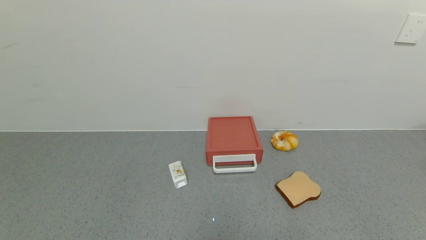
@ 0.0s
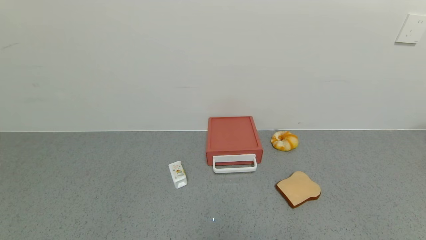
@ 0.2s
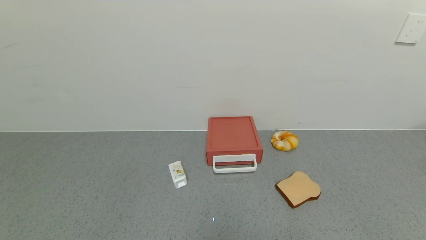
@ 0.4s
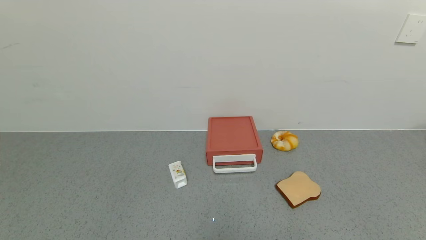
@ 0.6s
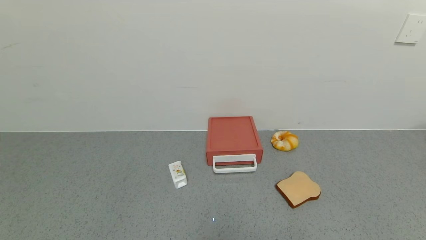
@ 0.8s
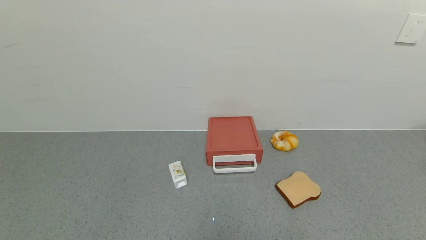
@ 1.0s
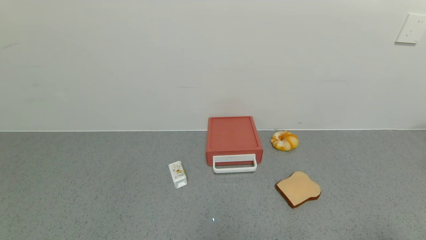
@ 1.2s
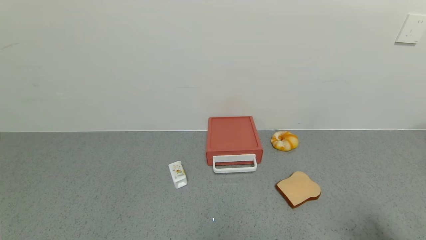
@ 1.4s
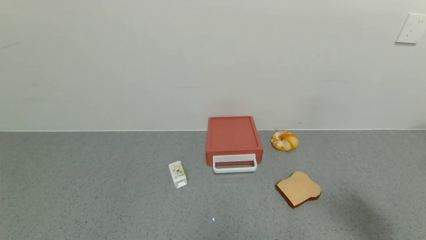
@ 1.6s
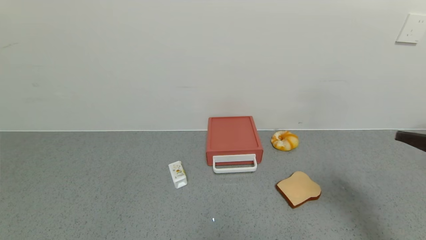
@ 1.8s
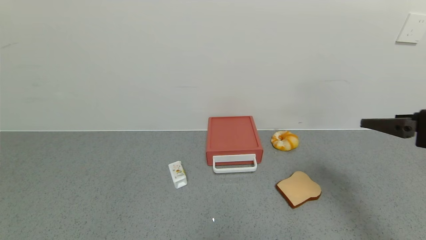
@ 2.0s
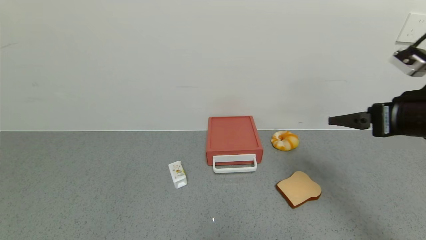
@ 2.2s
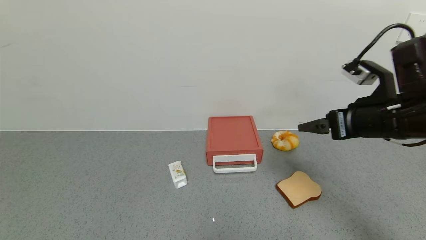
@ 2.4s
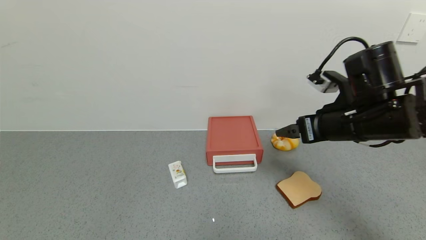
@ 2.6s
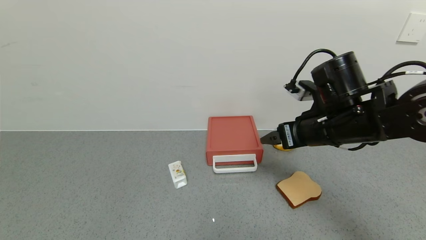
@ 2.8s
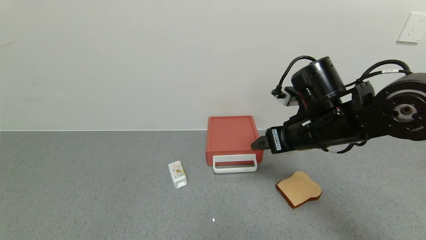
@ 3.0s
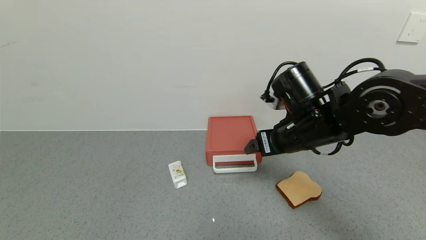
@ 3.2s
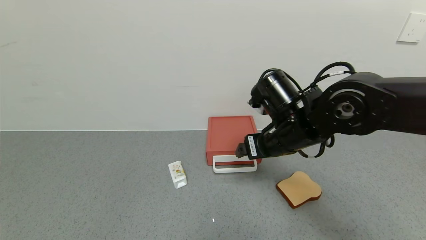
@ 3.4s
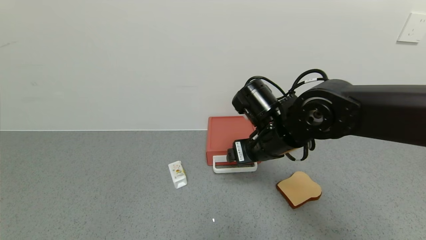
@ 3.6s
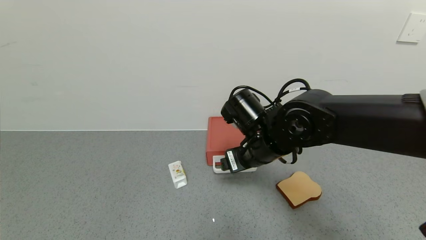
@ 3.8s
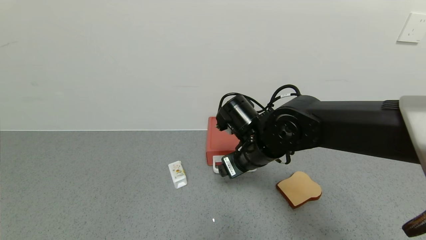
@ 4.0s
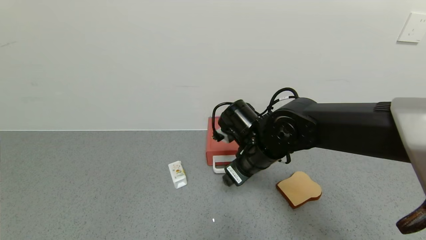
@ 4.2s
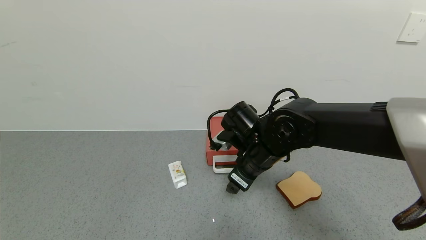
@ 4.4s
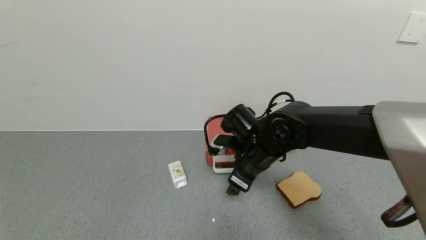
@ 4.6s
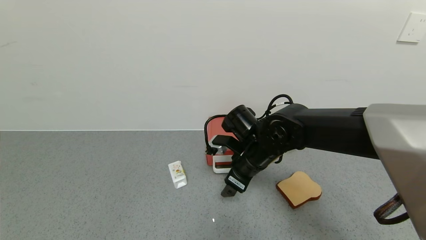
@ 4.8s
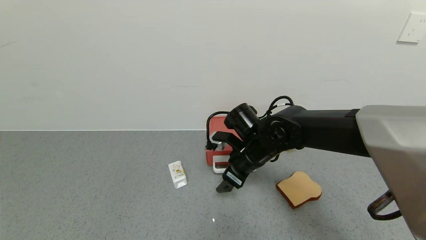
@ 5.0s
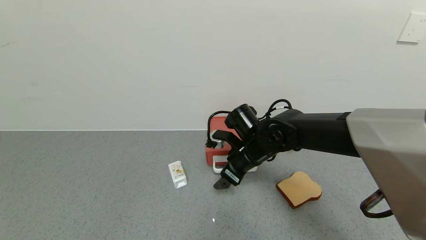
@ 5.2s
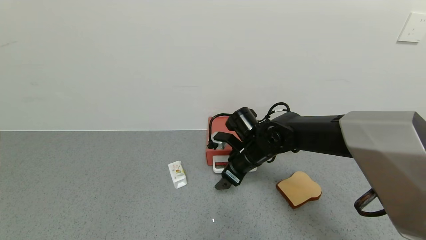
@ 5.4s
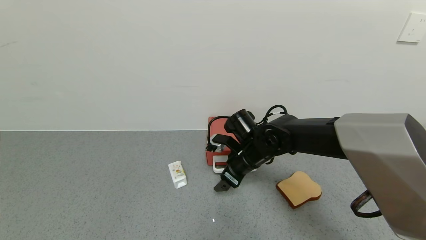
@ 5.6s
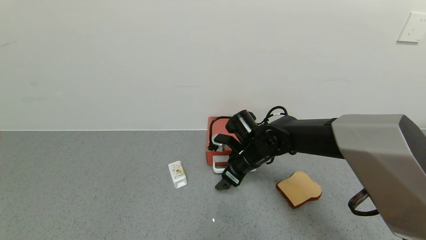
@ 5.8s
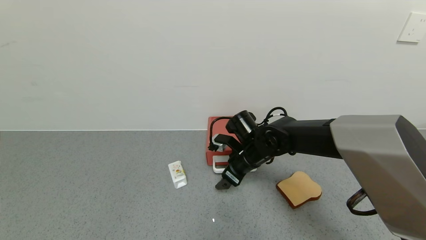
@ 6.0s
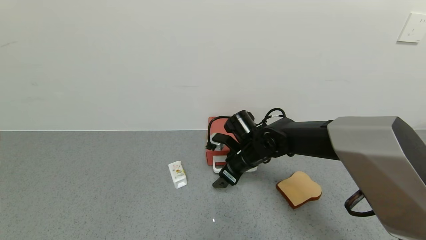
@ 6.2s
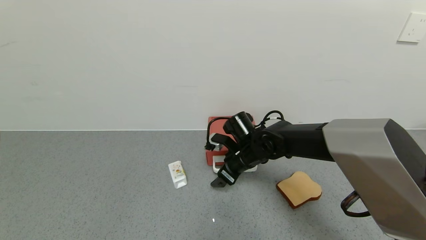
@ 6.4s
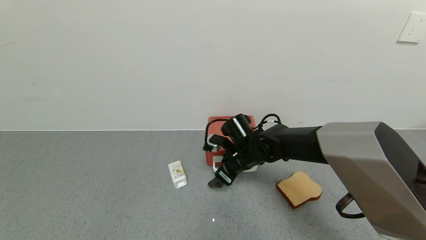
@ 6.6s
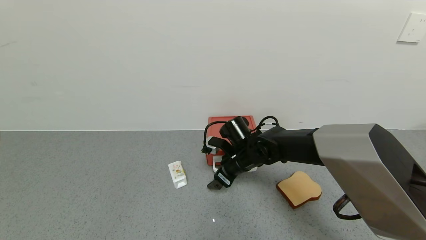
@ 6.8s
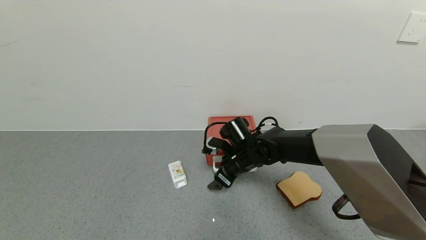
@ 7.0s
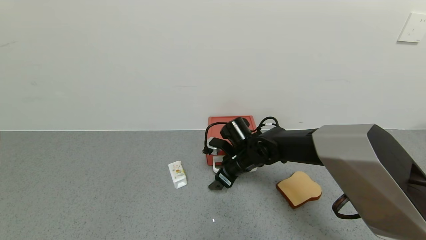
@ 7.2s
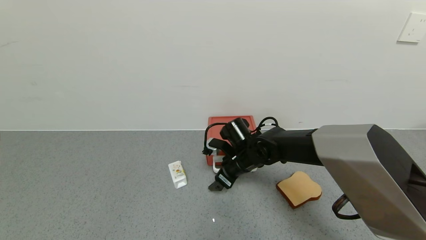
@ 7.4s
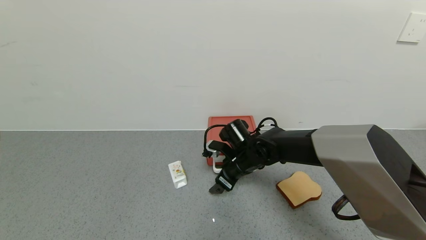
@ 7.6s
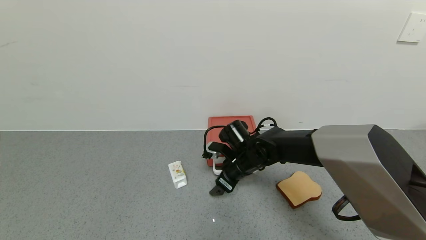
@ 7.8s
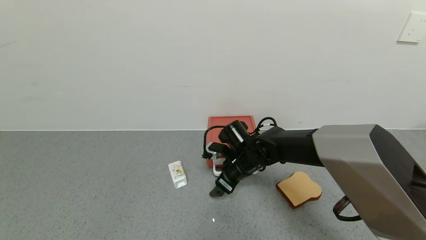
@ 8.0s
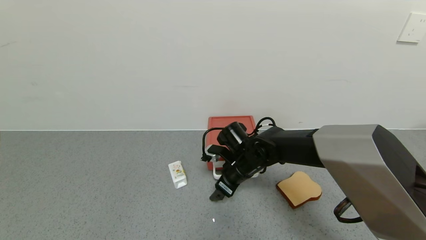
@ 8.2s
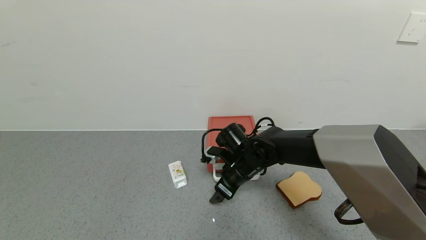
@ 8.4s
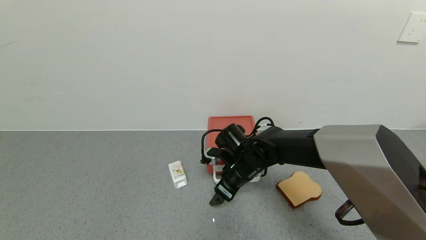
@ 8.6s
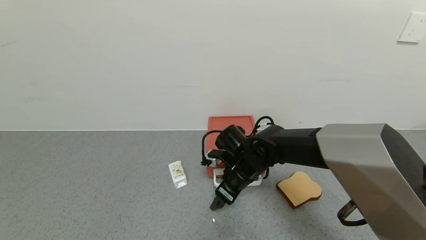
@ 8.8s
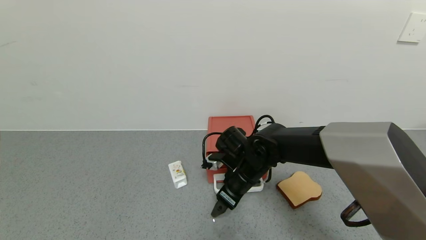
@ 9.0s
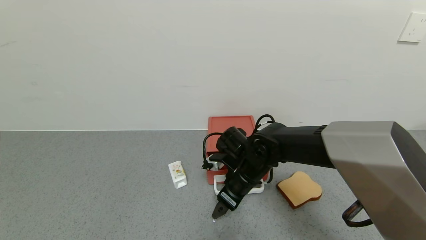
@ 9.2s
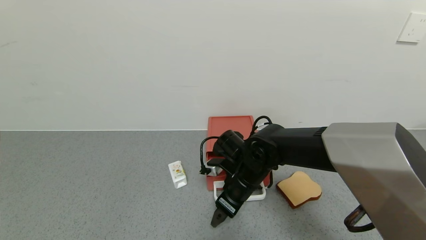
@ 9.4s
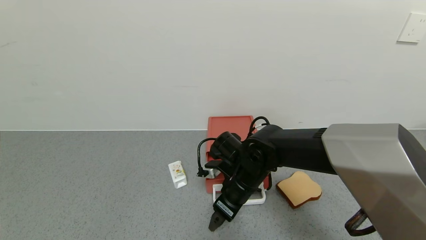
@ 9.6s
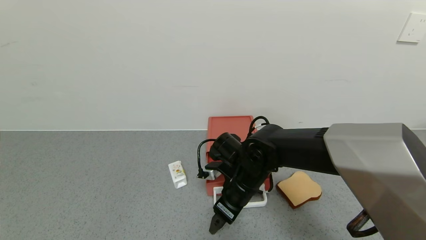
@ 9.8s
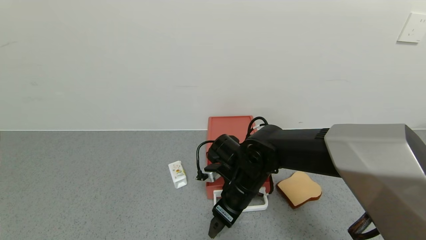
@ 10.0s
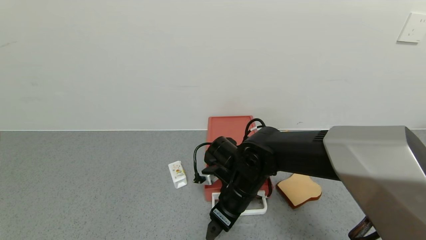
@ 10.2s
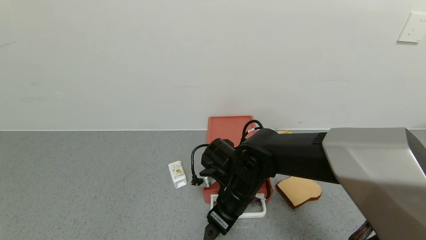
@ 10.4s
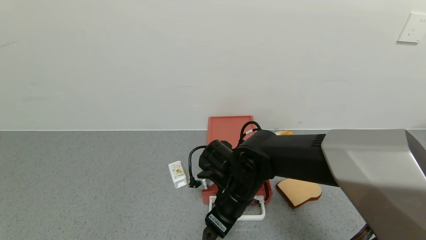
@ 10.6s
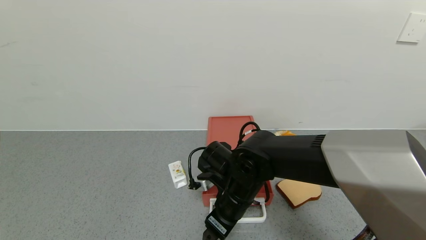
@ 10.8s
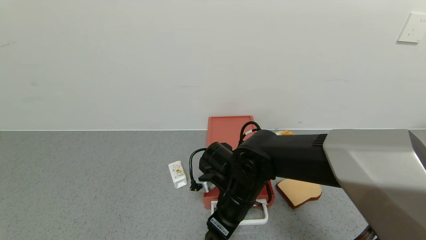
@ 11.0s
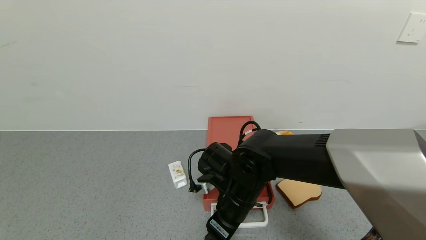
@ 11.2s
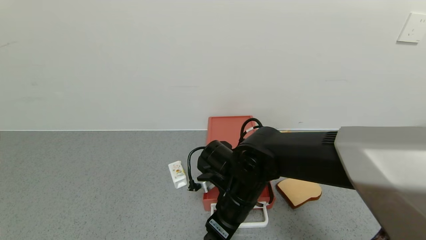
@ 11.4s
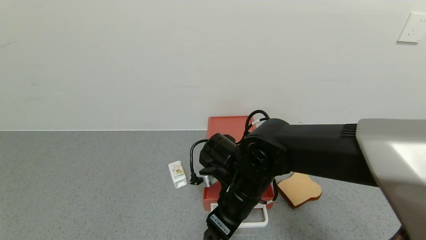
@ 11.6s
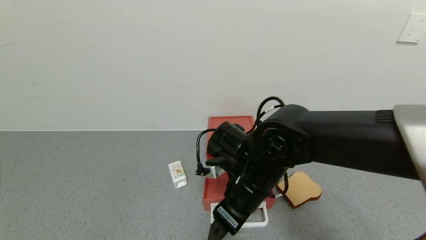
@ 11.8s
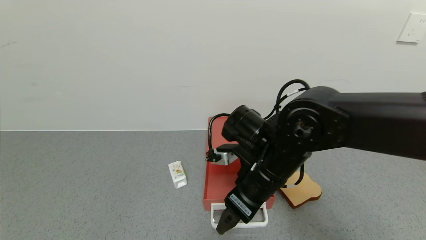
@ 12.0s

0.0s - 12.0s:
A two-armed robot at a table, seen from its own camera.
Task of the whole recording: use the gripper to open the drawer and close the red drawer.
Step, 0.0s - 11.8s: Open the red drawer with the right gripper.
0.0s - 1.6s: The right gripper is displaced upward and forward by some 20 cm.
1.6s - 3.0s: The right gripper heads forward and to the left, covering roughly 30 cm.
3.0s - 4.4s: The right gripper travels to the left and downward by about 10 cm.
4.4s - 6.0s: The right gripper heads forward, covering about 5 cm.
6.0s - 9.0s: The grippers move only a little.
9.0s - 10.4s: The right gripper changes place by approximately 5 cm.
10.4s - 12.0s: The right gripper is displaced upward by approximately 10 cm.

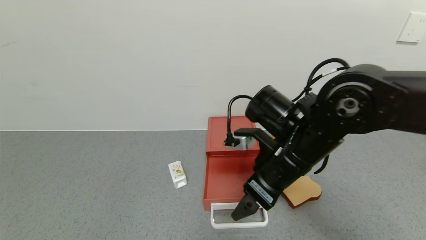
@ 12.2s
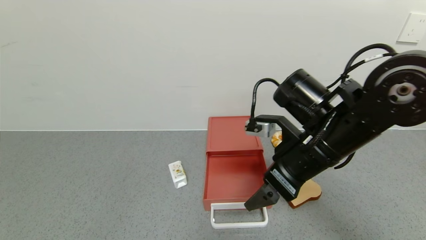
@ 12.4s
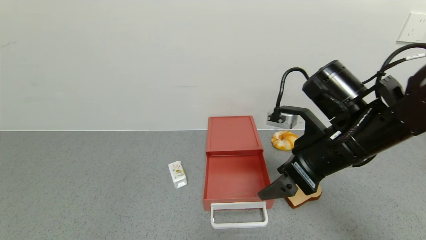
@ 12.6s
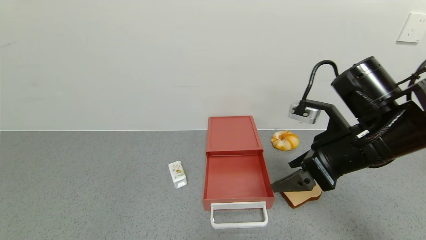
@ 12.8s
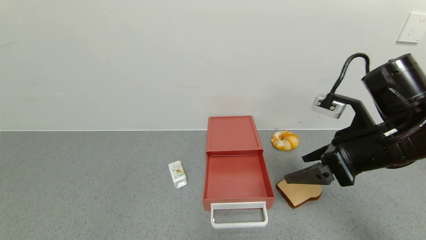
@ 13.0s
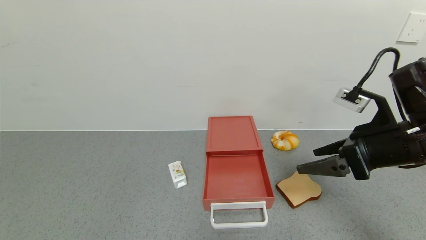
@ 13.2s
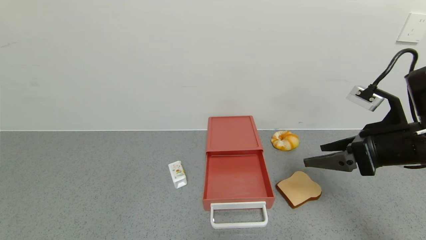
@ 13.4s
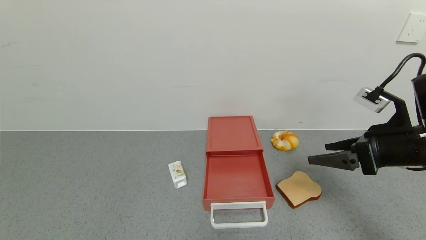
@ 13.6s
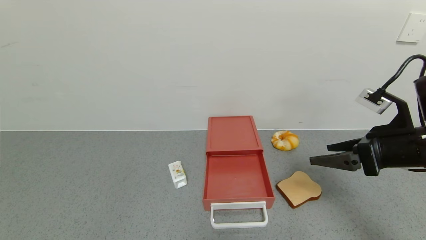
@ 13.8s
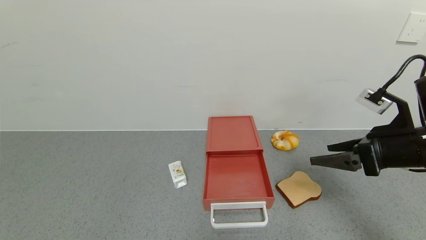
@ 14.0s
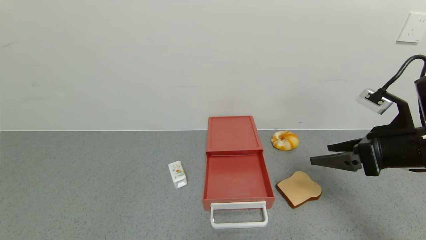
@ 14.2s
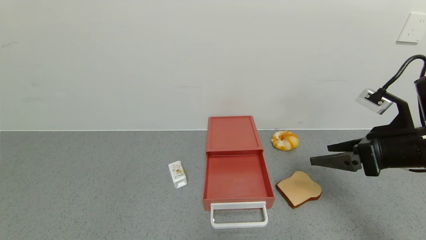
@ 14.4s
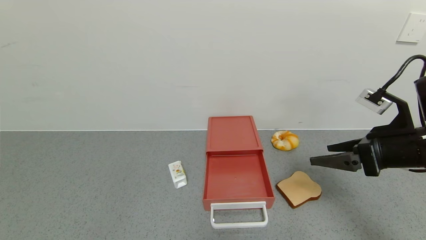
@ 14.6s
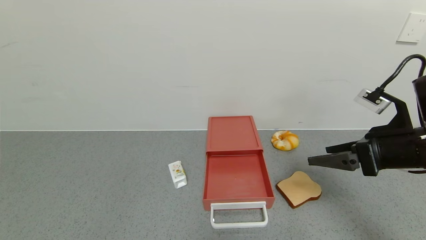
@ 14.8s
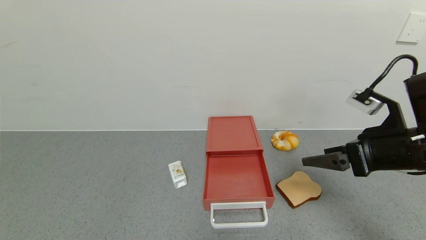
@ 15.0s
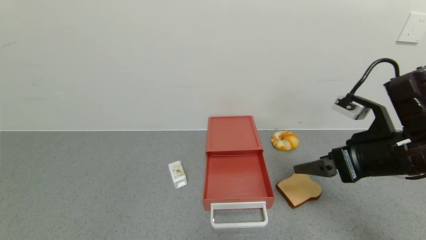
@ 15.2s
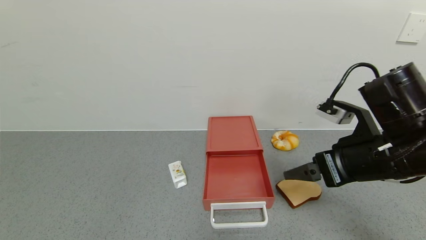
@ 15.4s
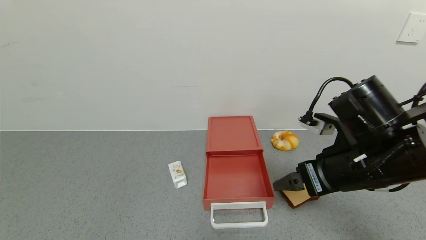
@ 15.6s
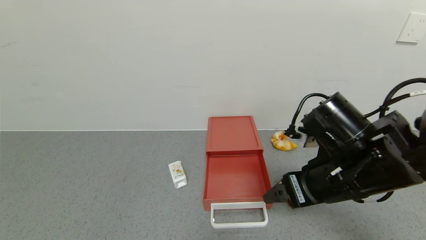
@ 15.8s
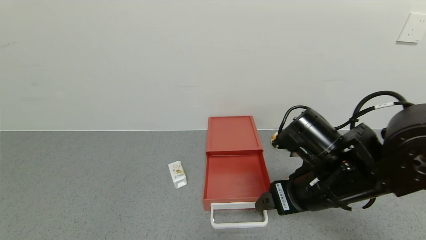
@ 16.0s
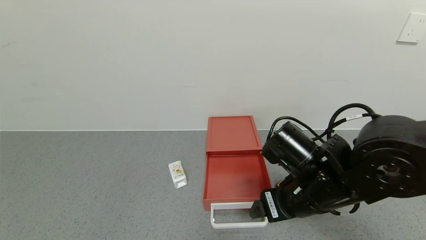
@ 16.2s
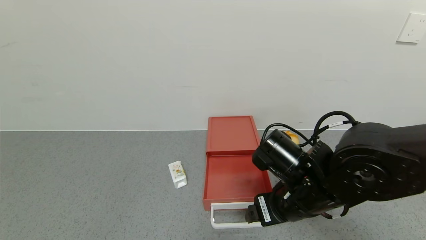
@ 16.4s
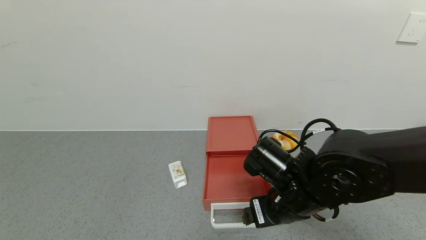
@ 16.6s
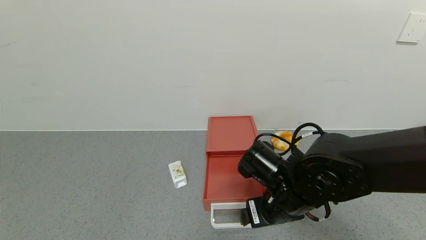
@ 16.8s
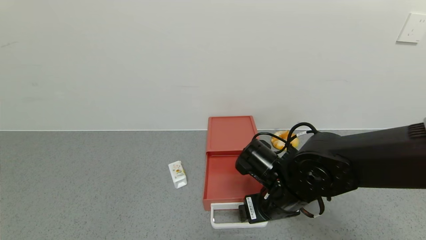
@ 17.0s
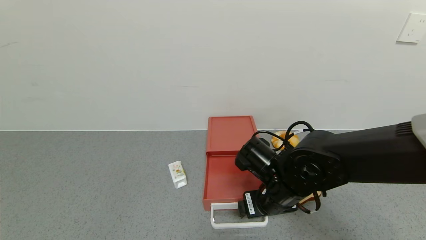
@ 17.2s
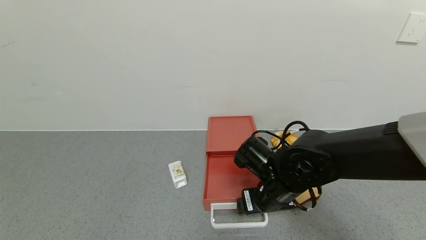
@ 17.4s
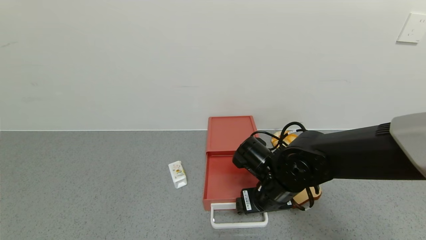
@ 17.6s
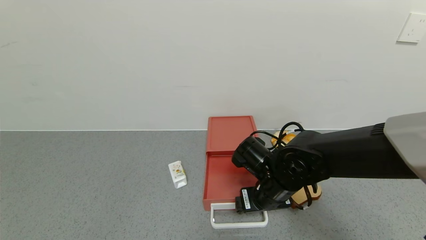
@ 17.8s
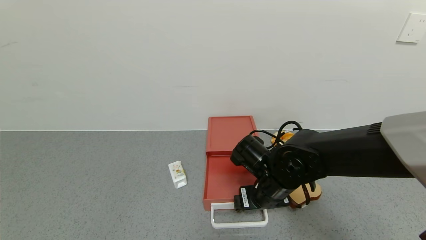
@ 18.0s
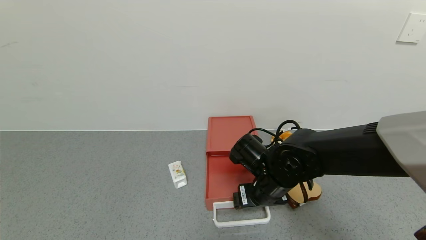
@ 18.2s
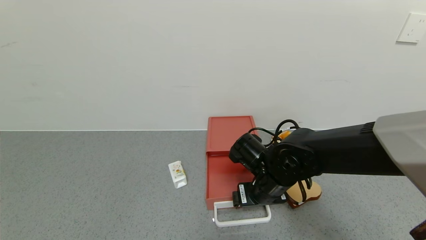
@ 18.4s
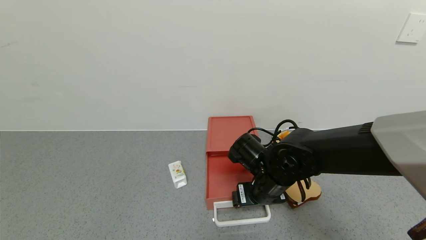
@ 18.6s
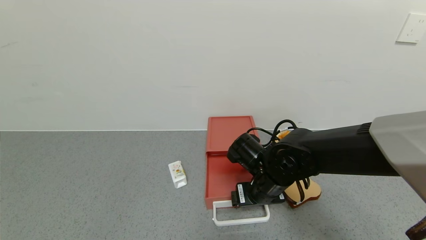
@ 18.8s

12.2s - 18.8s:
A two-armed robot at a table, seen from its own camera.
Task of the whole recording: use the gripper to open the drawer and close the red drawer.
12.2s - 13.8s: The right gripper travels to the right by about 20 cm.
13.8s - 15.4s: The right gripper goes roughly 10 cm to the left.
15.4s - 17.2s: The right gripper goes about 15 cm to the left and downward.
17.2s - 18.8s: The grippers stay close to where they were, moving slightly.
